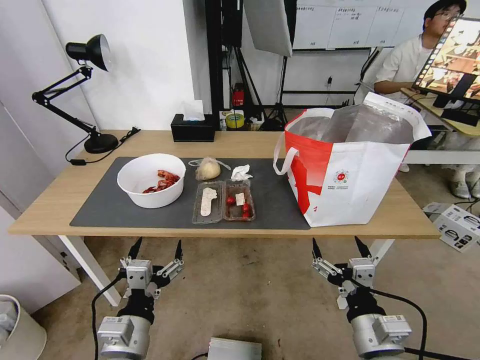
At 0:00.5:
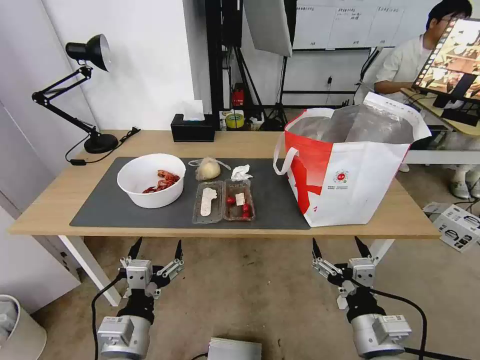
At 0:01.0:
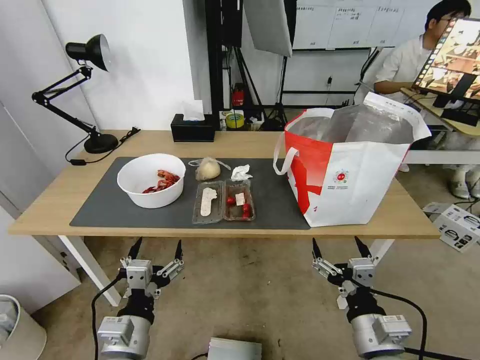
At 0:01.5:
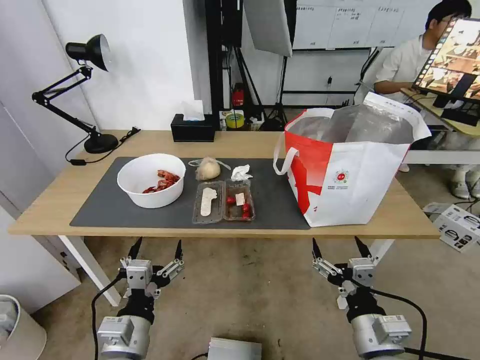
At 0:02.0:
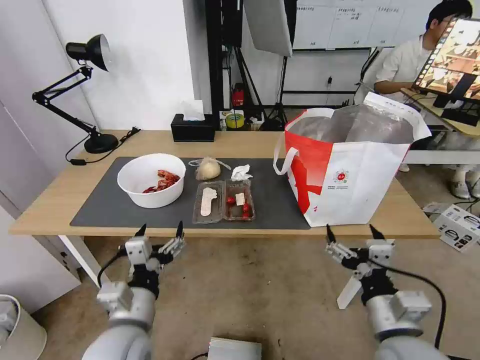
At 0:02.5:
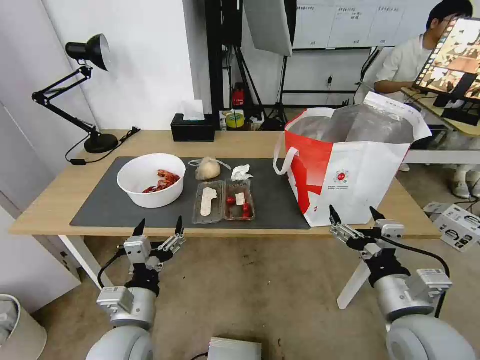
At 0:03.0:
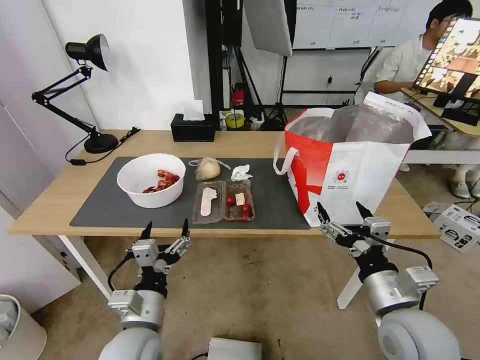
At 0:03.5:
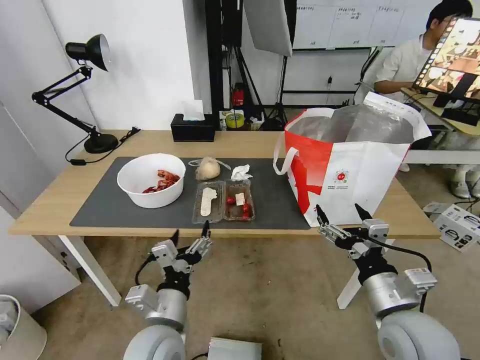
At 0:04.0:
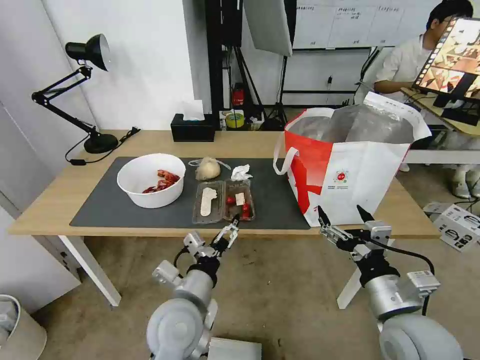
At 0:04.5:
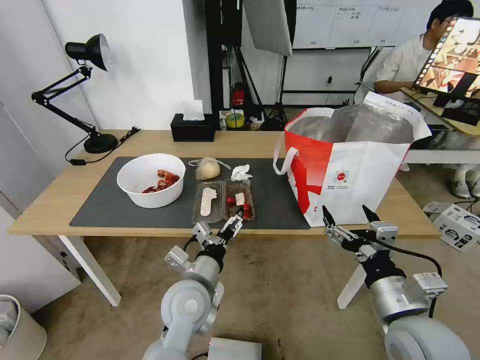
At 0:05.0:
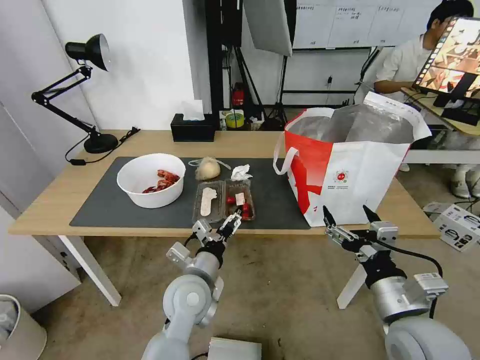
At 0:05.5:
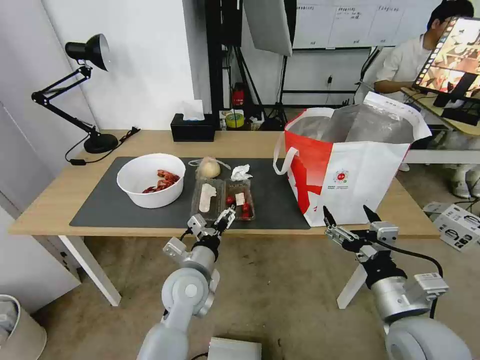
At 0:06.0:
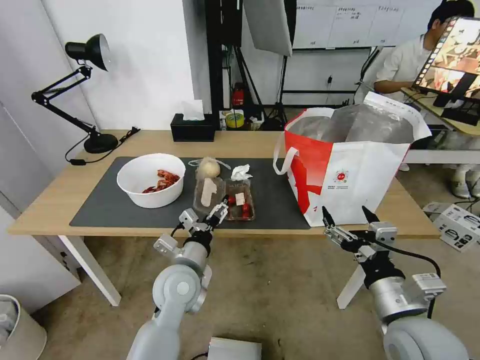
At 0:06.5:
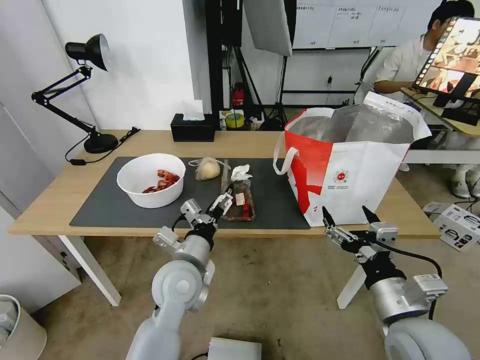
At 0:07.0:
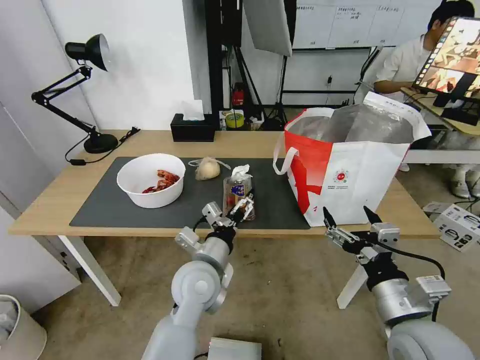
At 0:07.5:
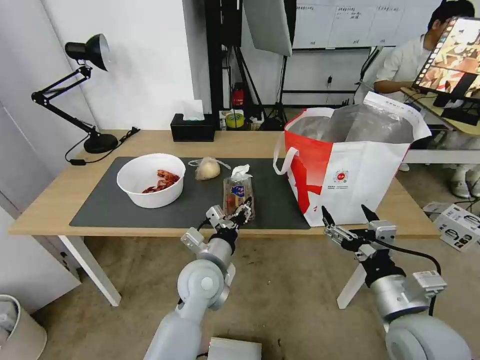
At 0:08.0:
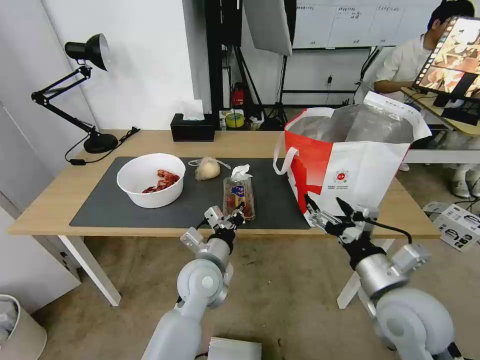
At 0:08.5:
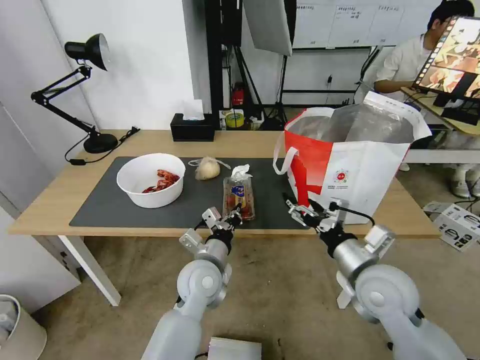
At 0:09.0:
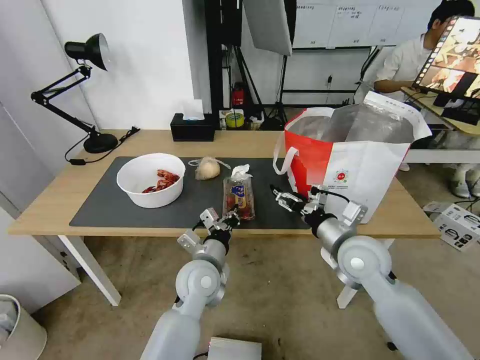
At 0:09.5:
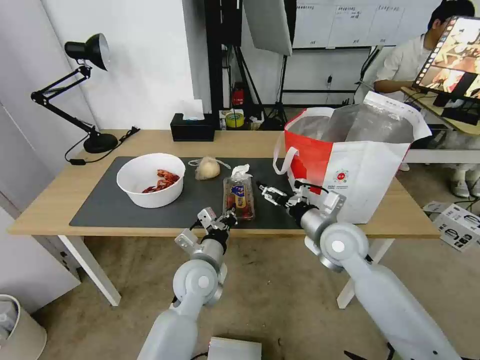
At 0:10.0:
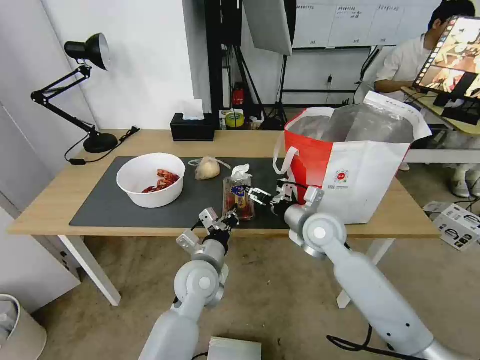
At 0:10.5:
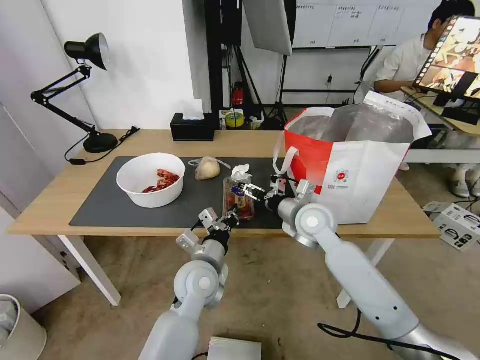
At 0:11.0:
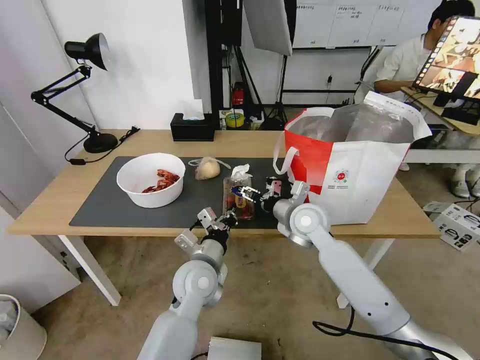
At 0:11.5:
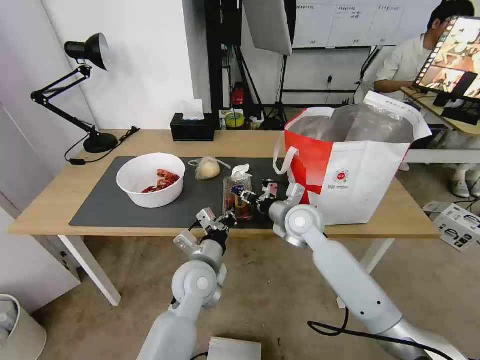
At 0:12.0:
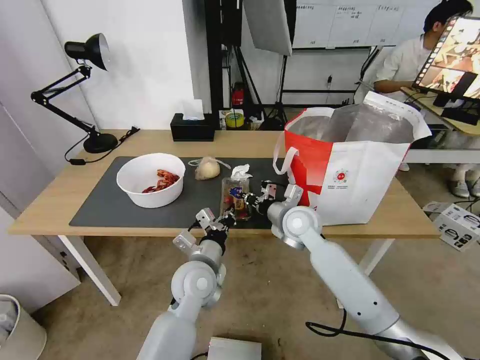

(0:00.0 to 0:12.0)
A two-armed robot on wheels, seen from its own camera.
Task of the whole recording: Pick up the trash from the table and place it into the takeout bag.
0:02.0 - 0:04.0: The left gripper goes some 10 cm to the right.
0:04.0 - 0:06.0: The left gripper moves forward, some 10 cm.
0:06.0 - 0:08.0: The left gripper closes up.
0:08.0 - 0:10.0: The right gripper is displaced forward and to the left by about 20 cm.
0:10.0 - 0:12.0: The right gripper ends up roughly 5 cm from where it was, and closes its fingers.

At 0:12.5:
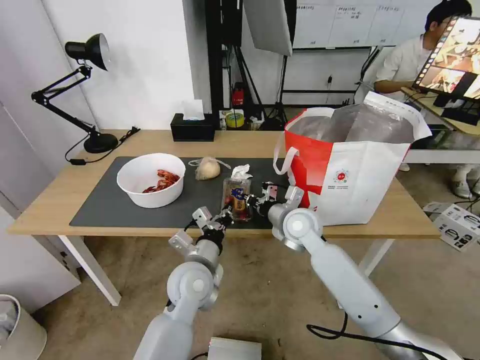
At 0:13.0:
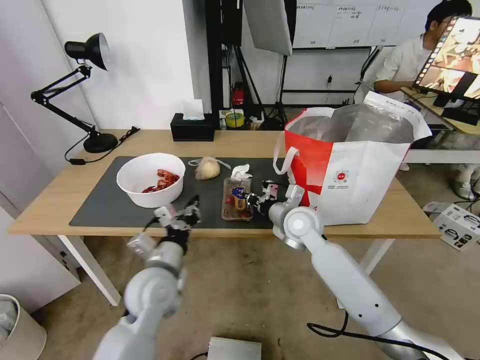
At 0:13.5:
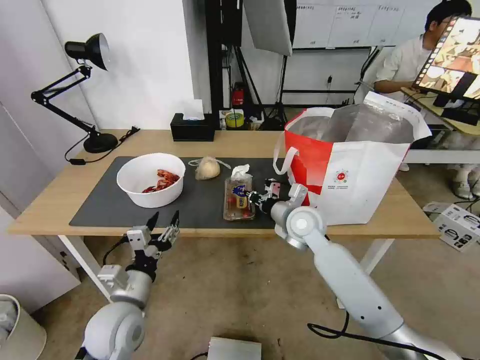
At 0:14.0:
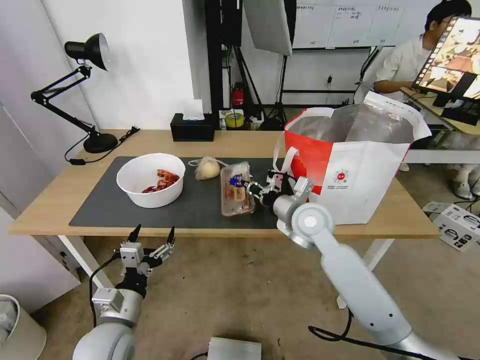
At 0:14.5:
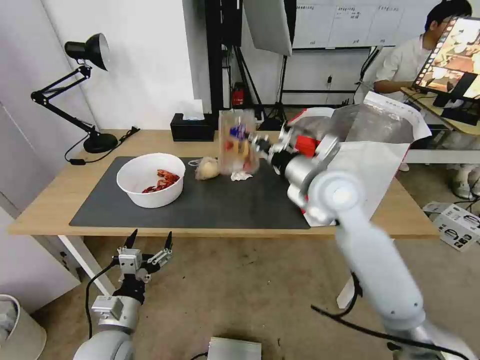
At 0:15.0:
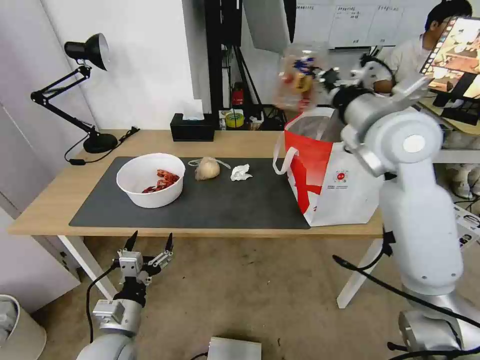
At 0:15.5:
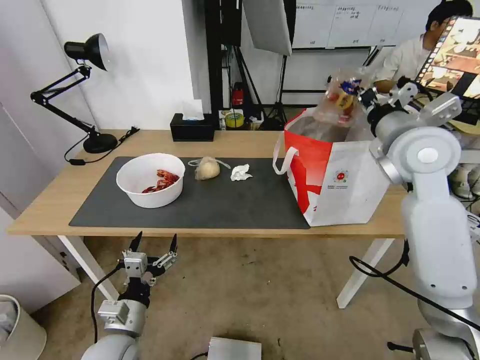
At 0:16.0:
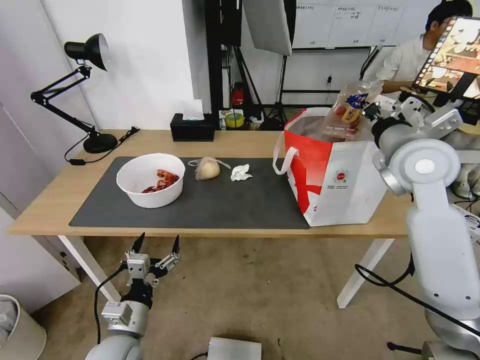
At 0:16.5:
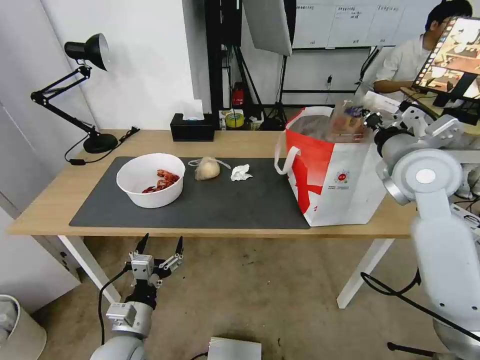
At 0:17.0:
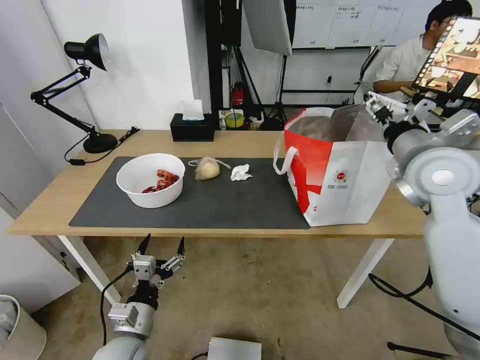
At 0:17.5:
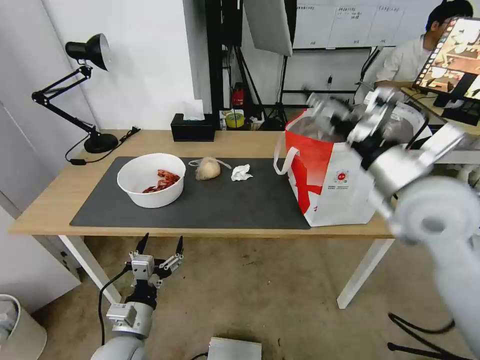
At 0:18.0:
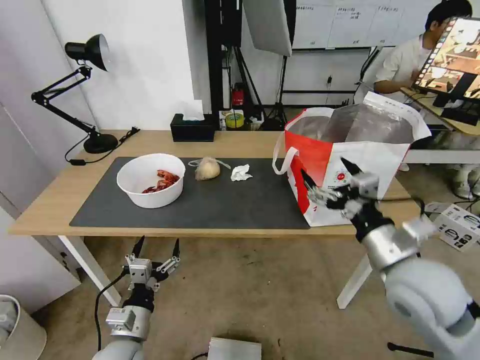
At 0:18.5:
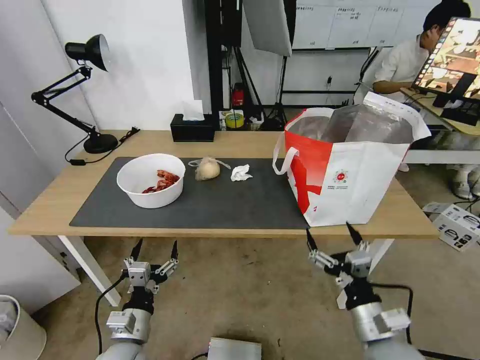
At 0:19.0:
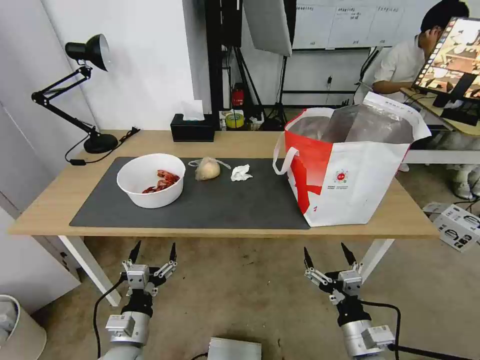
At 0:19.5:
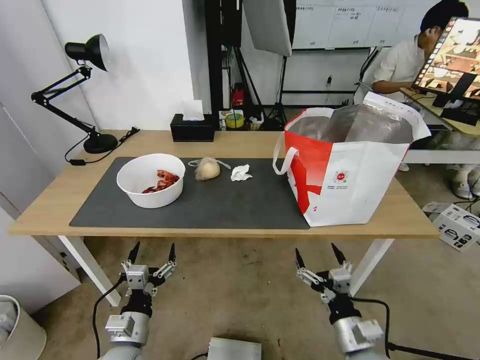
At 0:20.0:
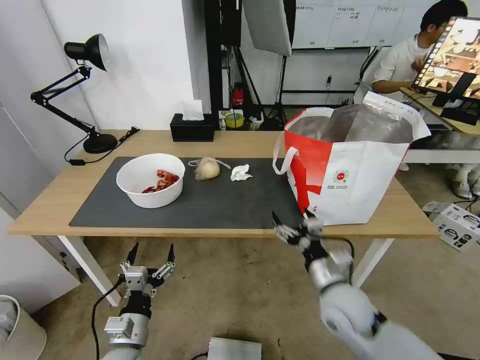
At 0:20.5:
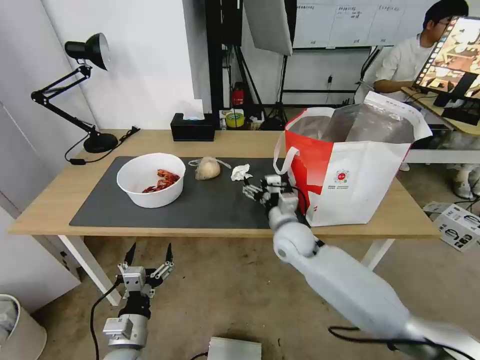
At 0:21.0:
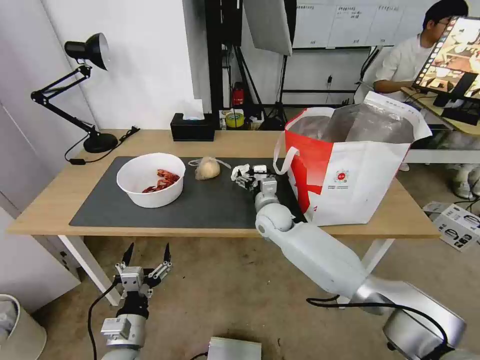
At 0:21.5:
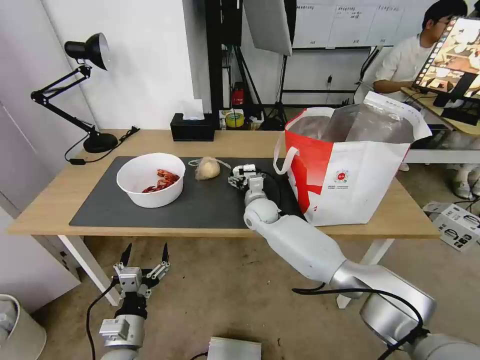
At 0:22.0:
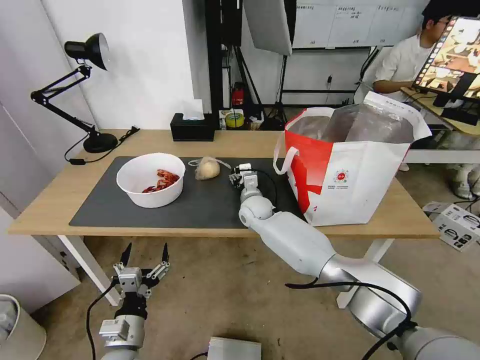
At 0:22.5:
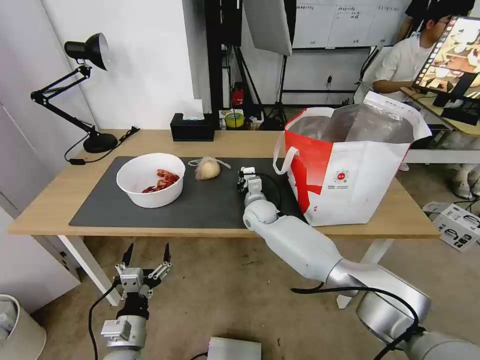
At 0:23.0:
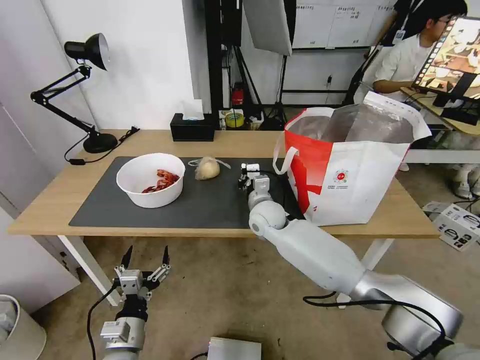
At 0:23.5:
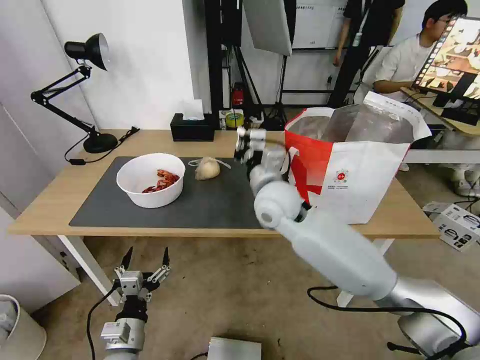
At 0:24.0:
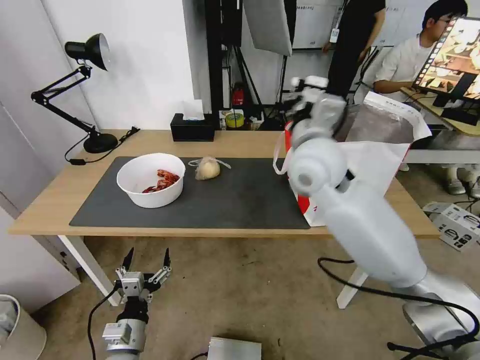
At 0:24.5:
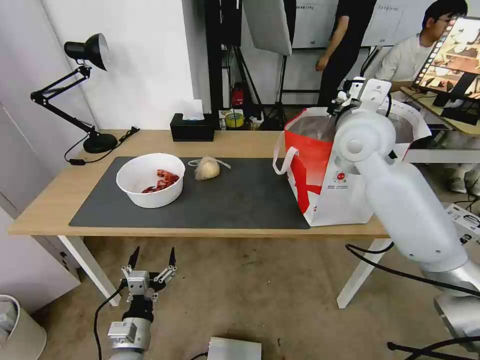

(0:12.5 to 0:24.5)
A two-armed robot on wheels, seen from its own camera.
Task of the whole recording: Pick up the trash from the table and place it into the takeout bag.
0:12.5 - 0:14.5: The right gripper moves upward, approximately 15 cm. The left gripper travels to the left and backward by about 20 cm, and opens its fingers.
0:14.5 - 0:16.5: The right gripper heads to the right, covering some 15 cm.
0:16.5 - 0:18.5: The right gripper heads downward and backward, covering about 35 cm, and opens its fingers.
0:18.5 - 0:20.5: The right gripper is displaced forward and to the left by approximately 30 cm.
0:20.5 - 0:22.5: The right gripper moves forward and to the left, about 15 cm, and closes its fingers.
0:22.5 - 0:24.5: The right gripper goes some 35 cm upward and to the right.

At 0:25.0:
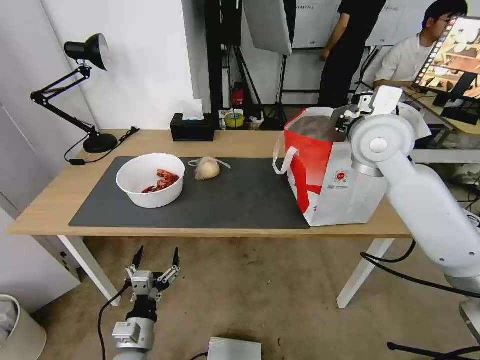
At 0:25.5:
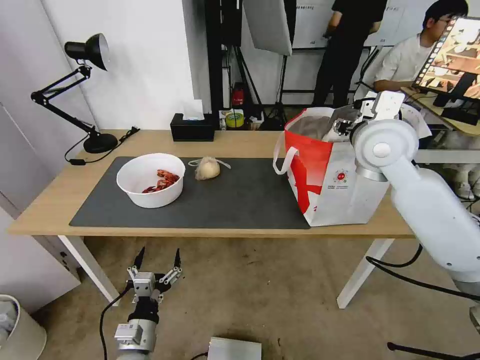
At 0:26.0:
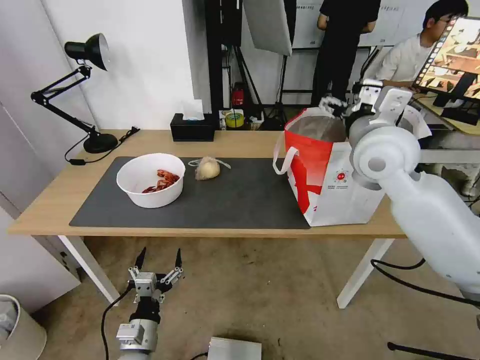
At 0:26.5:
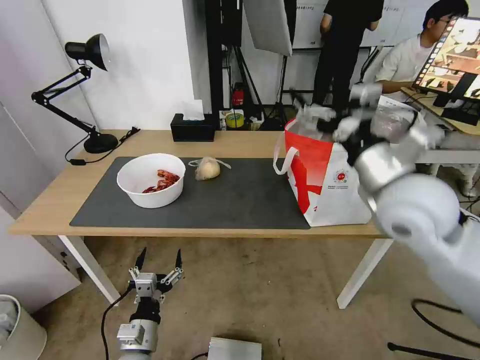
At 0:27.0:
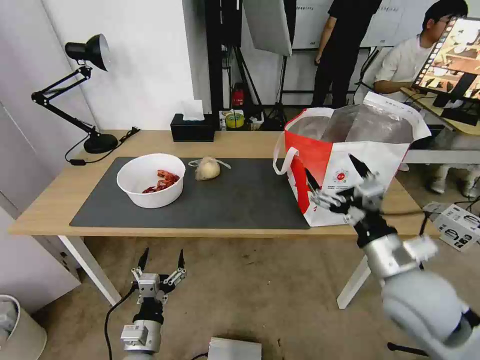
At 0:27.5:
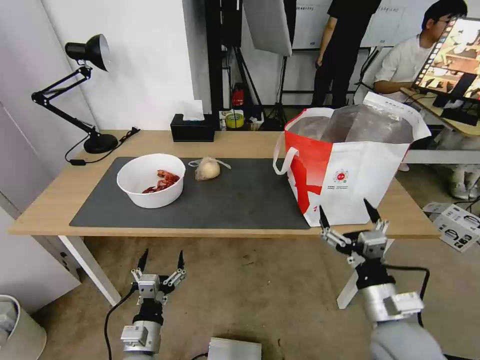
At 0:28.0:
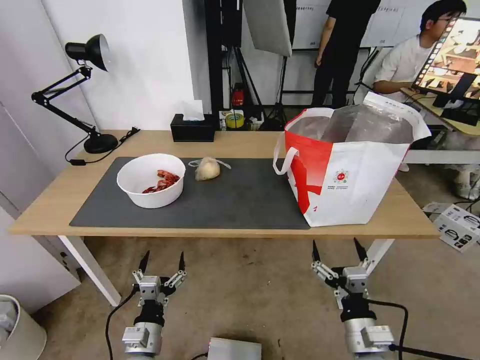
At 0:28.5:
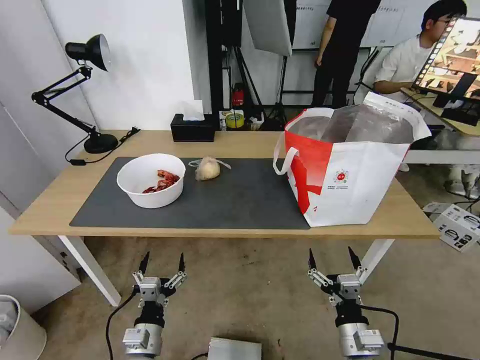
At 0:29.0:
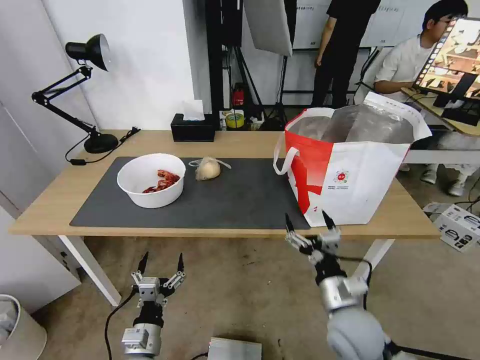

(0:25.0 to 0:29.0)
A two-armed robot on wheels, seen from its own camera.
Task of the whole recording: Pick up the trash from the table and place it into the takeout bag.
0:25.0 - 0:27.0: The right gripper is displaced backward and downward by approximately 25 cm, and opens up.
0:27.0 - 0:29.0: The right gripper moves downward and to the left, roughly 15 cm.
